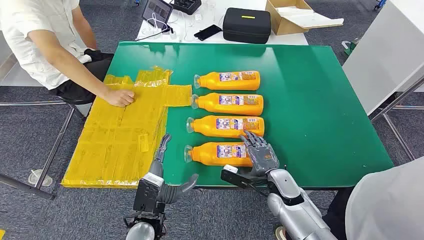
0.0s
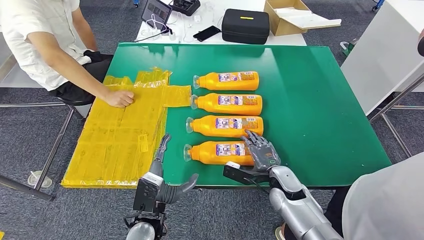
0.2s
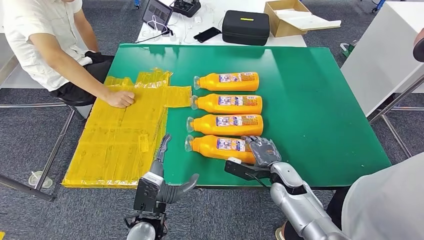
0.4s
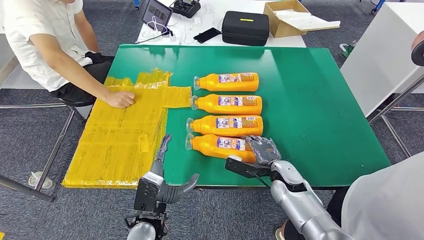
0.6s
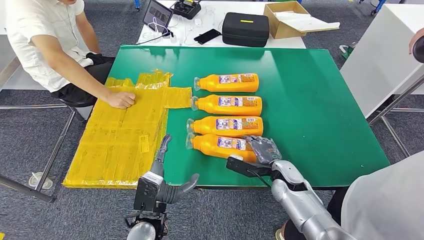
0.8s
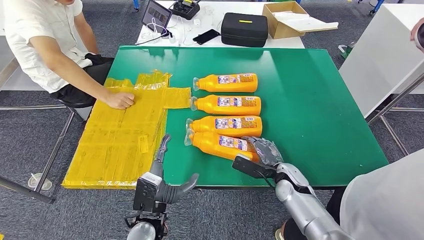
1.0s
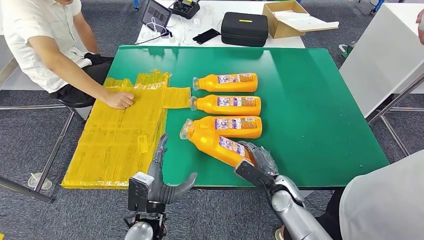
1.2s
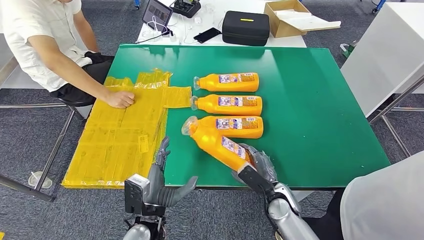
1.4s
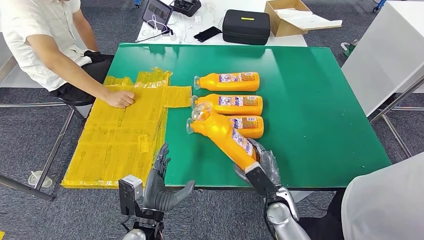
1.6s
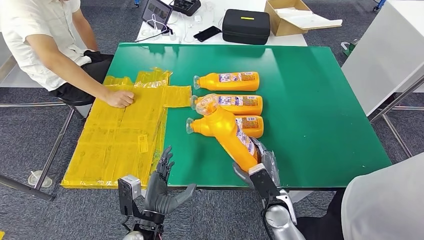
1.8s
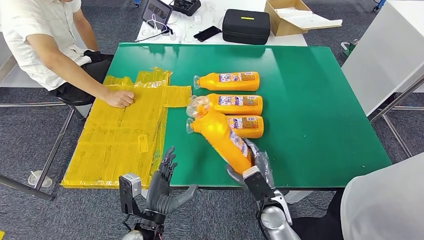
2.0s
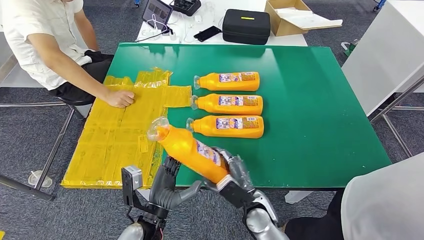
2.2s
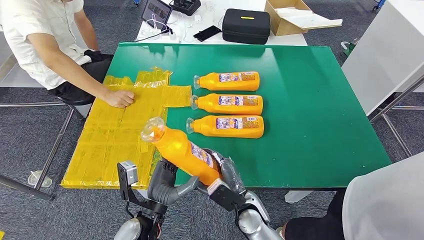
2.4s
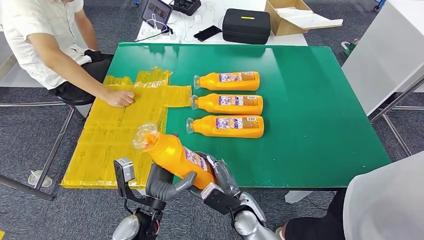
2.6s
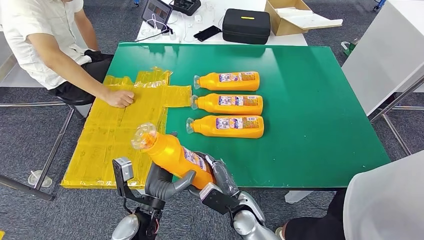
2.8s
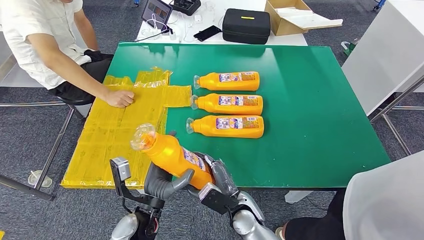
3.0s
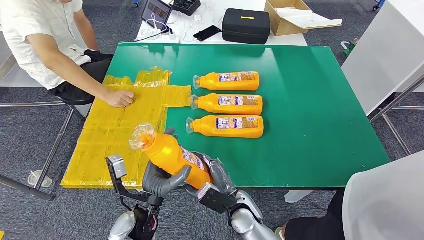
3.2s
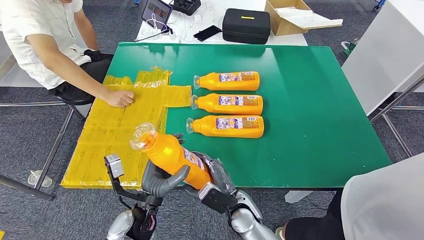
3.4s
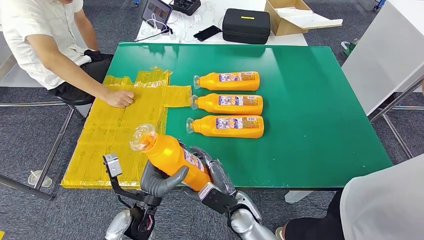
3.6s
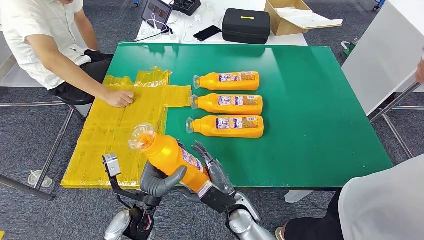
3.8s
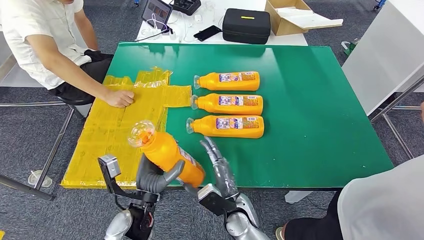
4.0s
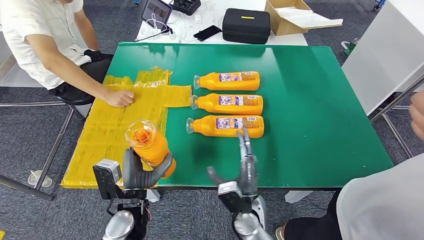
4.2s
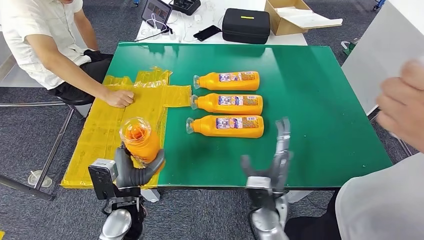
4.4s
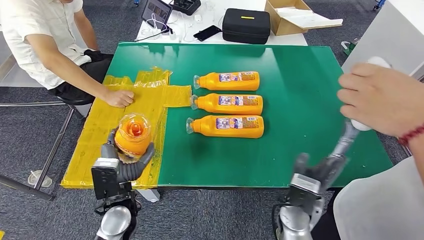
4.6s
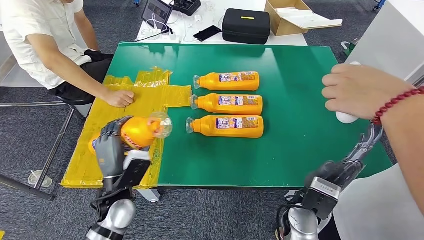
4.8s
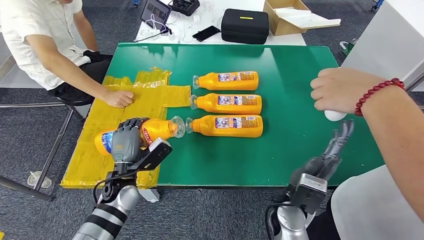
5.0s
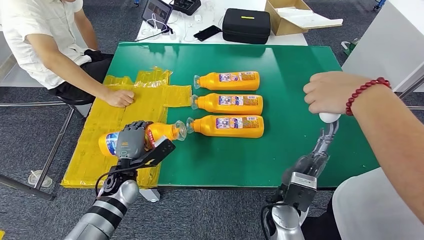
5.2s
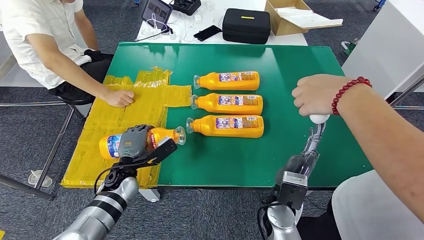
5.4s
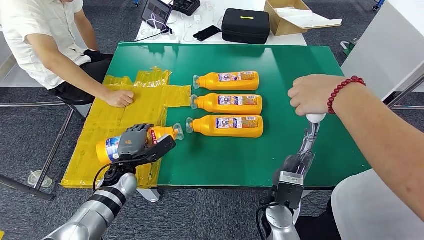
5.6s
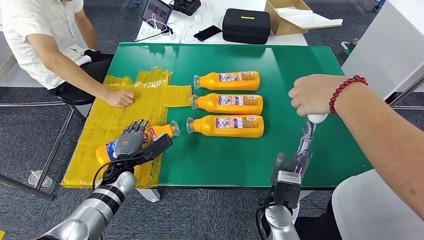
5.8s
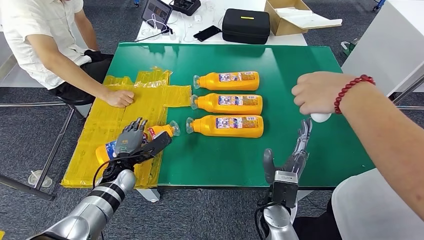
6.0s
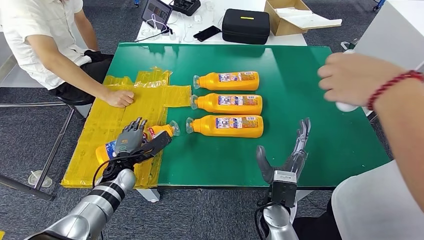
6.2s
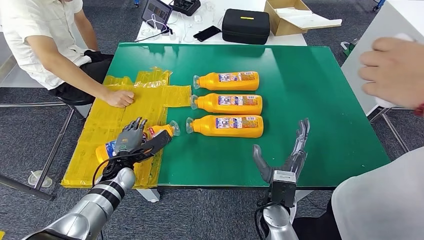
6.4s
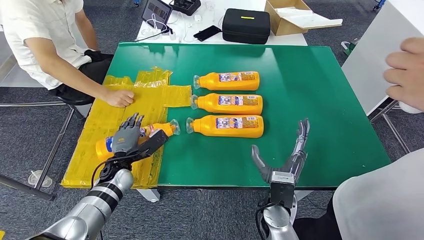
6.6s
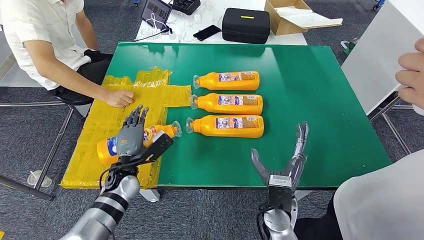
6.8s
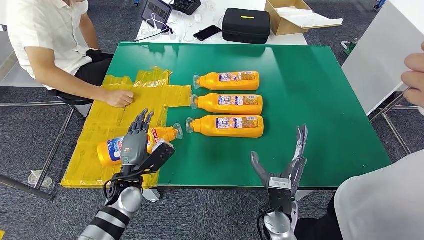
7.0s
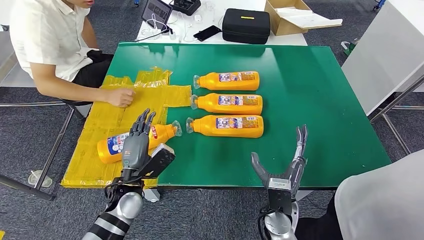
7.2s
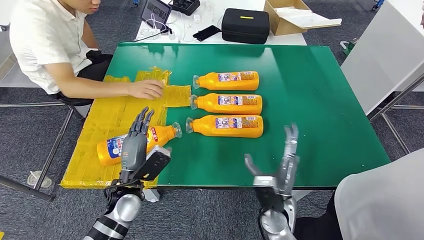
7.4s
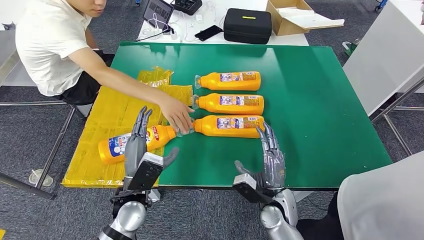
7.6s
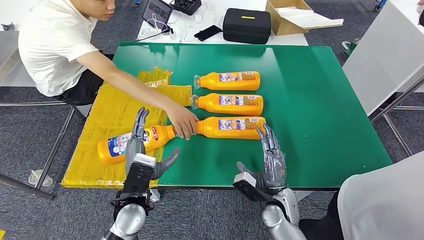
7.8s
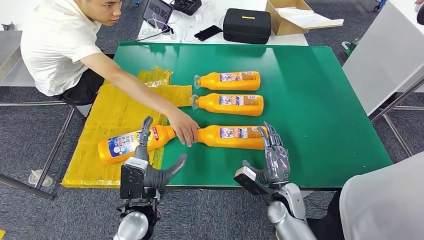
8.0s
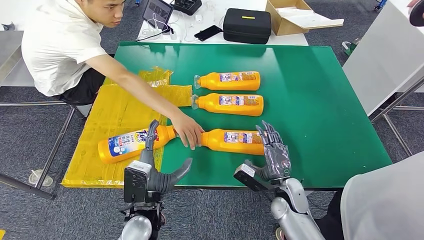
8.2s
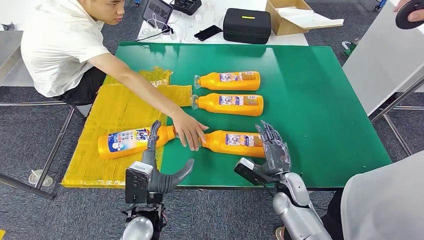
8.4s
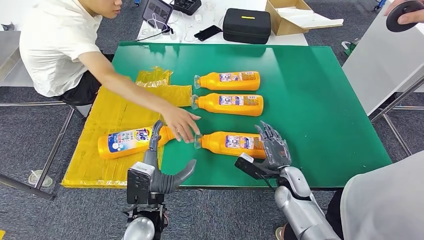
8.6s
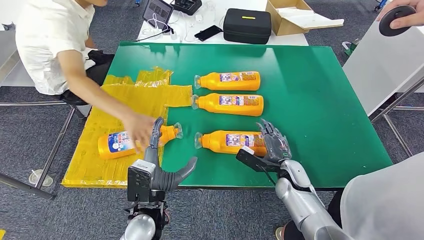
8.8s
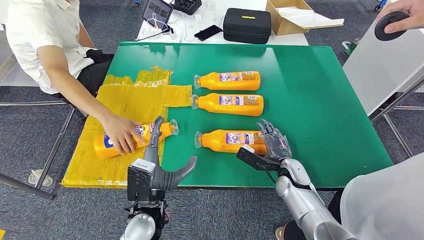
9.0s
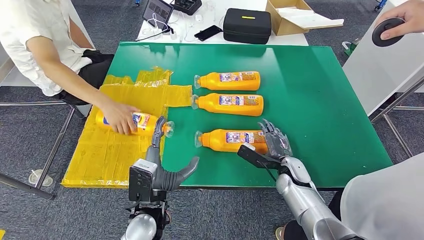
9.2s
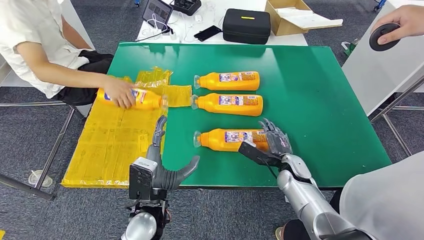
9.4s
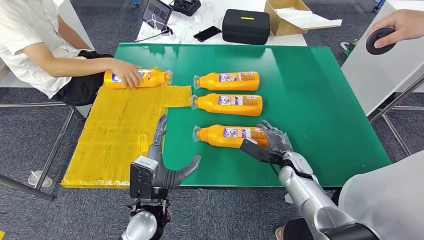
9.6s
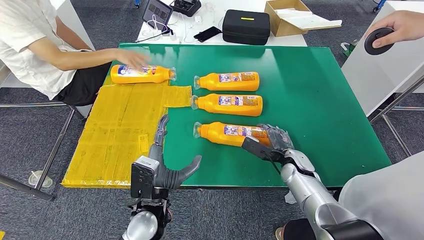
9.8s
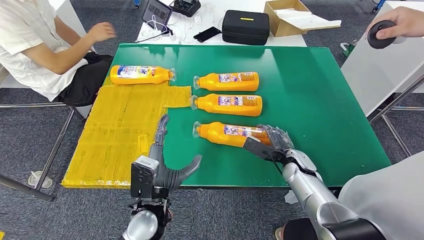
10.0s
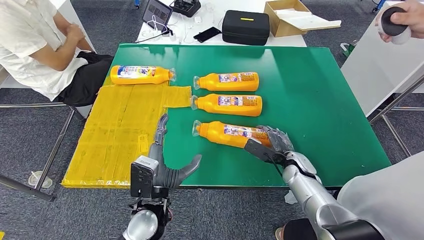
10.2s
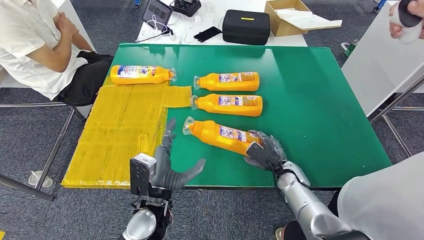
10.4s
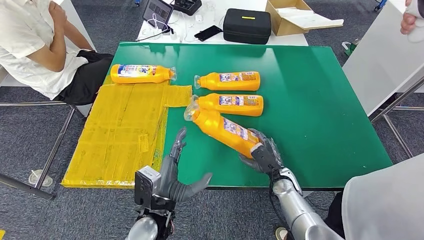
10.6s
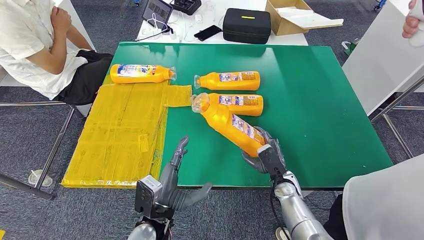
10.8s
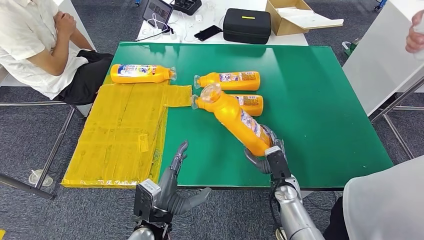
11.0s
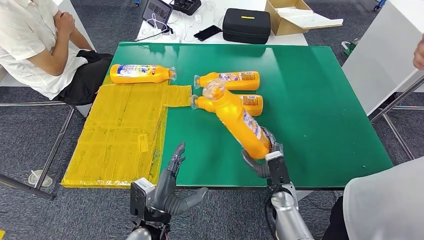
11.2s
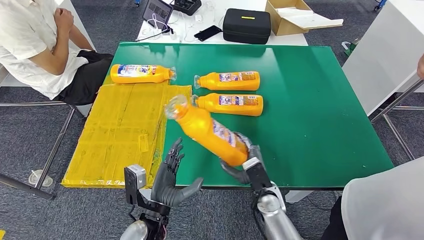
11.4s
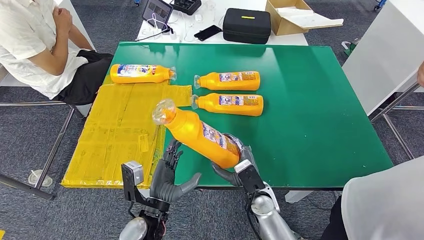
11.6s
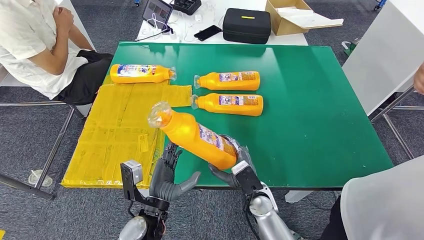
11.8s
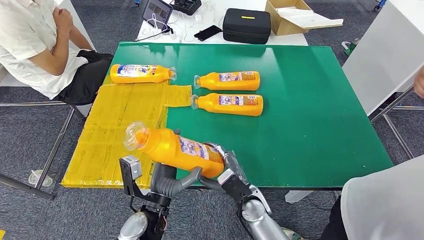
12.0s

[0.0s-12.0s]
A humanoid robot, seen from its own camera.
Step, 0.0s to 1.6s: Take the bottle from the table.
Step, 3.6s to 5.4s: Flip the bottle to face forward.
Step, 8.8s to 11.8s: Pick up the bottle from the table.
1.6s to 3.0s: The right hand travels to the left by approximately 10 cm.
3.0s to 4.4s: The right hand heads to the right, covering approximately 5 cm.
10.4s to 12.0s: The right hand goes some 15 cm to the left and backward.

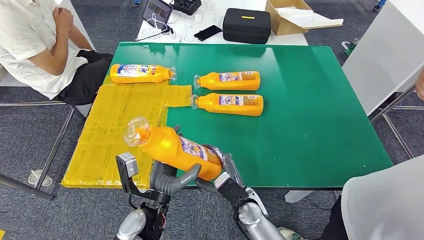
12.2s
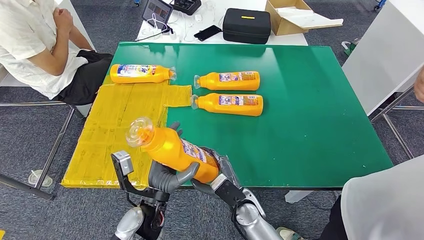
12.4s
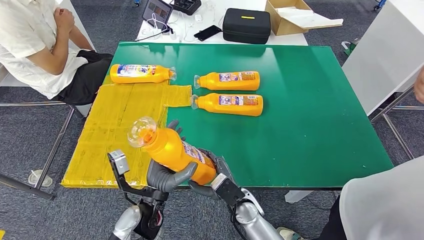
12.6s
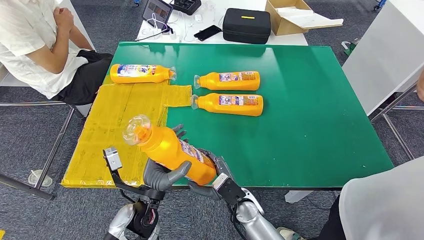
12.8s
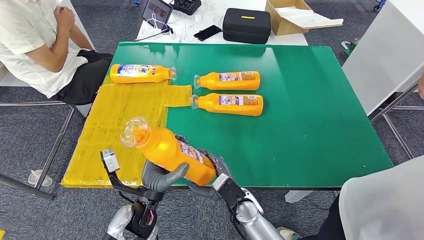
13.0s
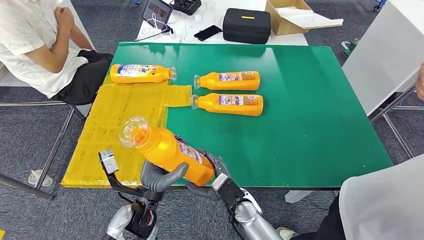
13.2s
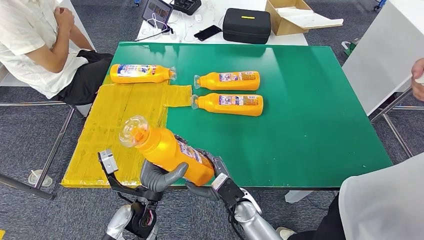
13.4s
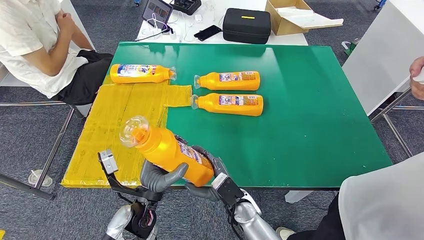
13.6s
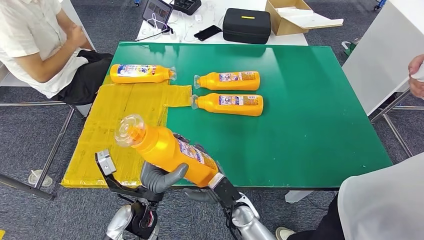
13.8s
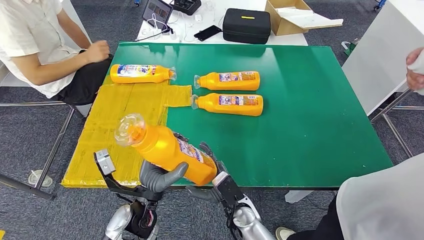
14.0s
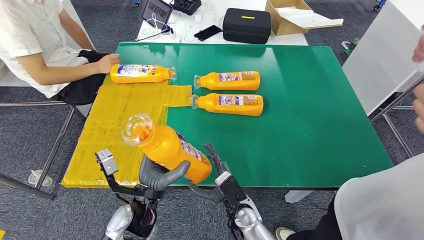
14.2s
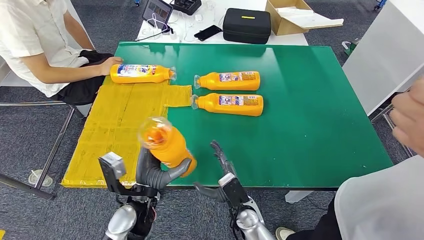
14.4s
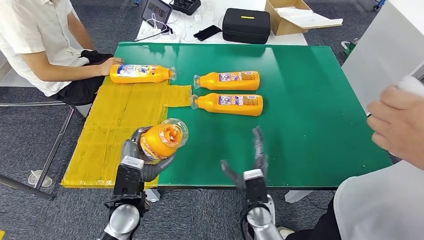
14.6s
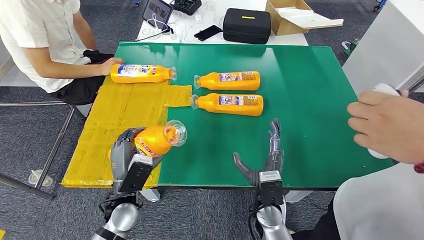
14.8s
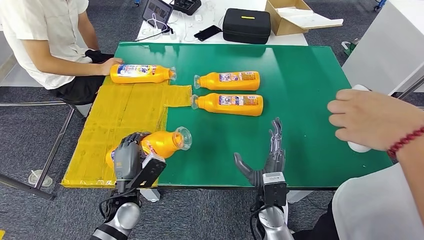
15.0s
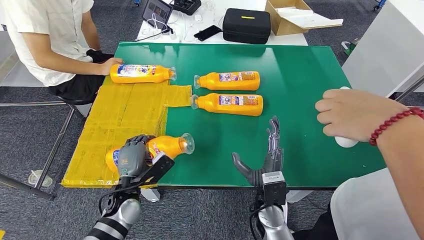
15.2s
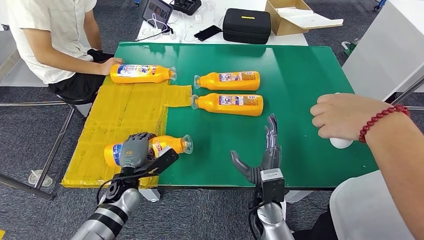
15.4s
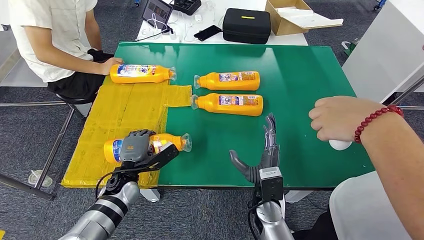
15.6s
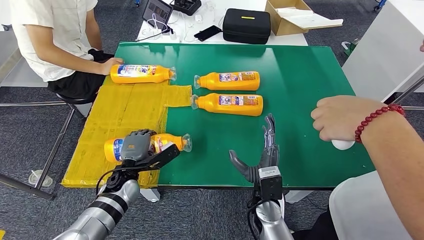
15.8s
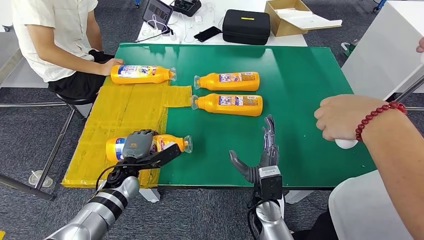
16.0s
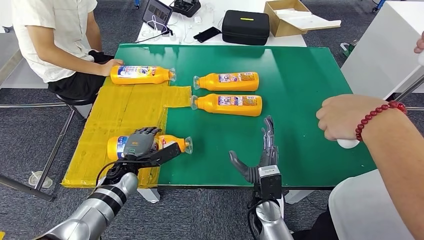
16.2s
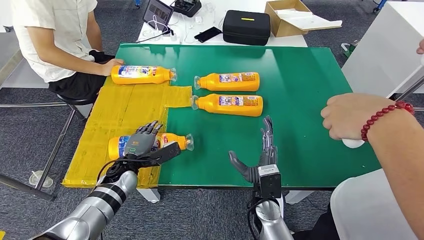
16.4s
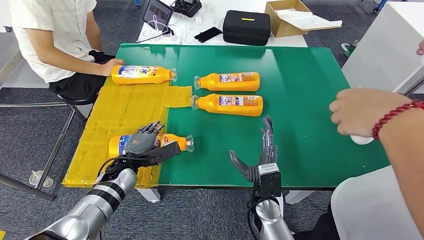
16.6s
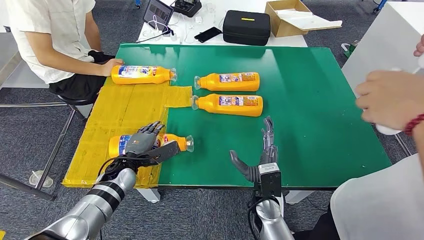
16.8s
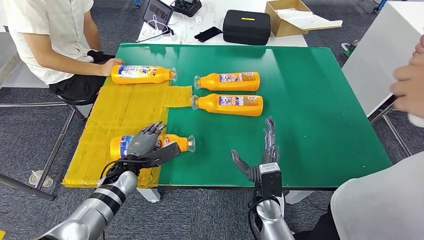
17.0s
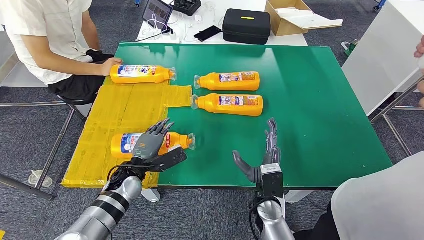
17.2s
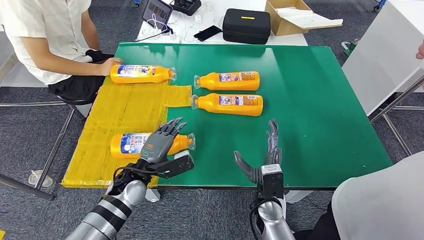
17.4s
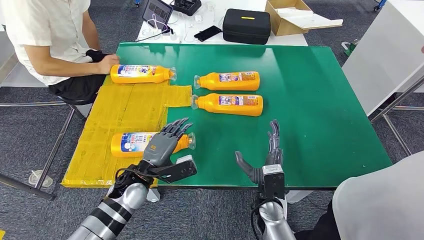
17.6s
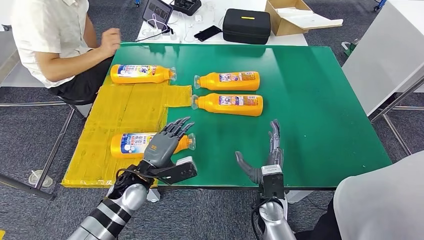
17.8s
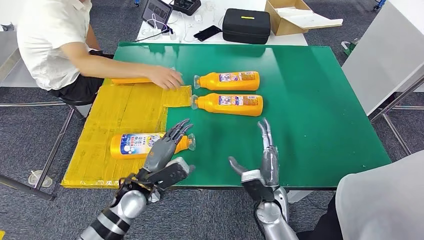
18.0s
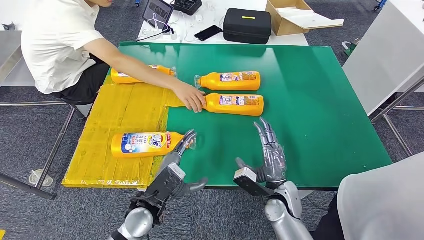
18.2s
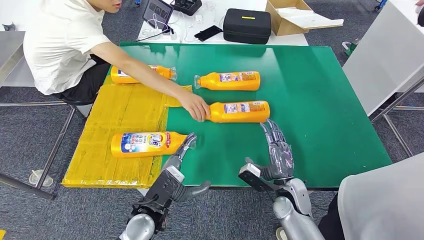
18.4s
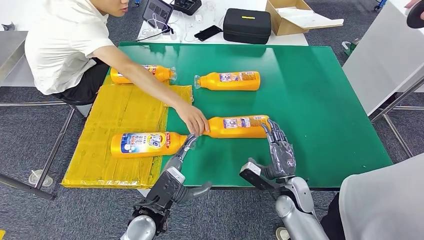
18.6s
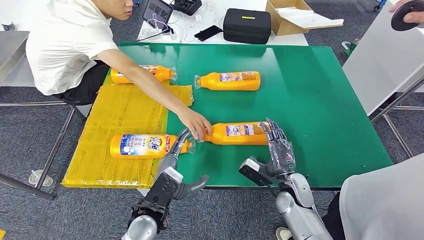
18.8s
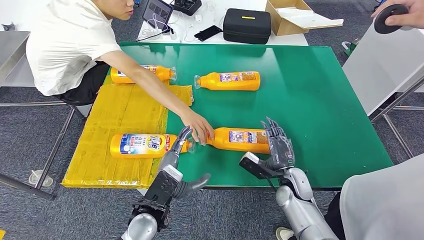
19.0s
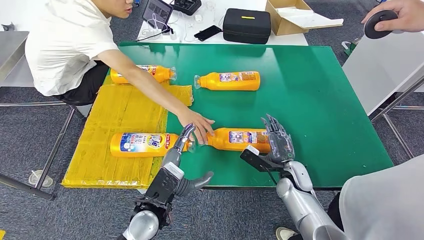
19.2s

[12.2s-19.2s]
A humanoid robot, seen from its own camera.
Step, 12.2s to 16.4s: Flip the bottle to face forward.
